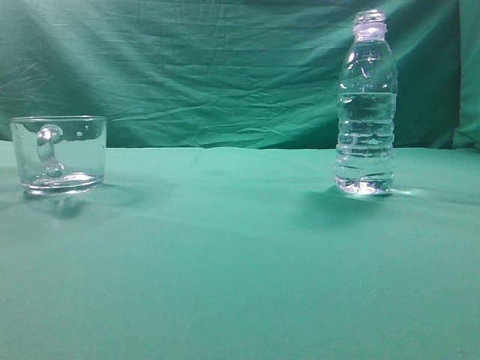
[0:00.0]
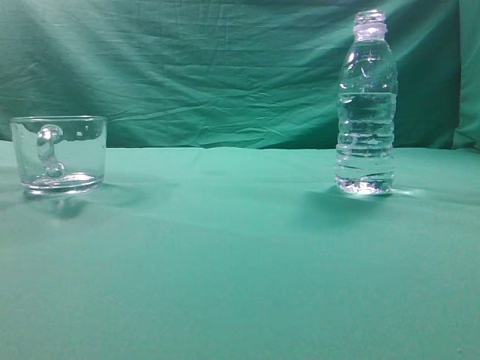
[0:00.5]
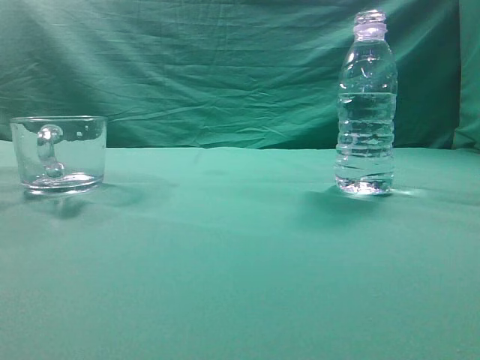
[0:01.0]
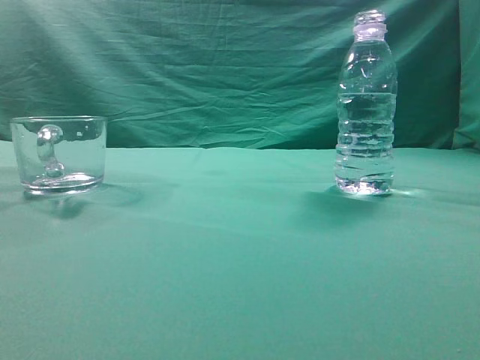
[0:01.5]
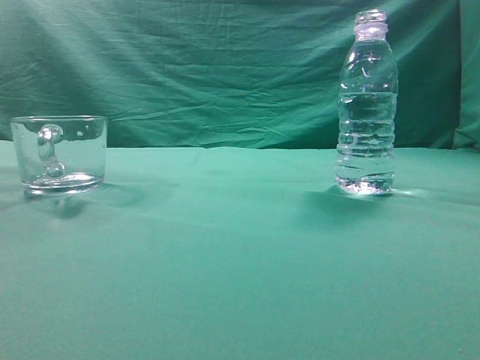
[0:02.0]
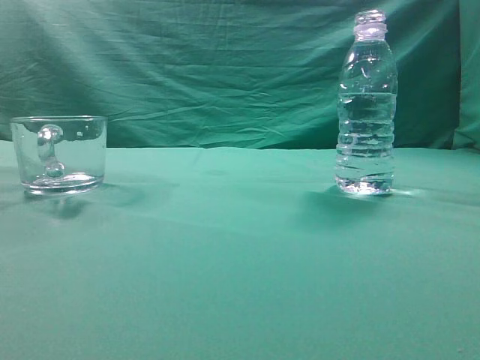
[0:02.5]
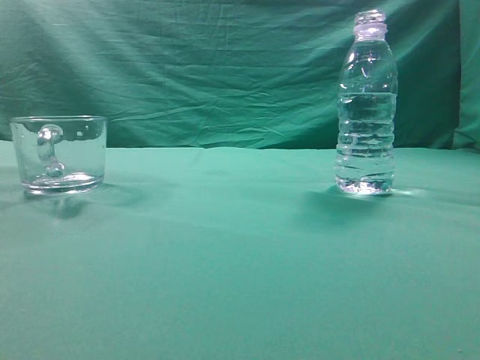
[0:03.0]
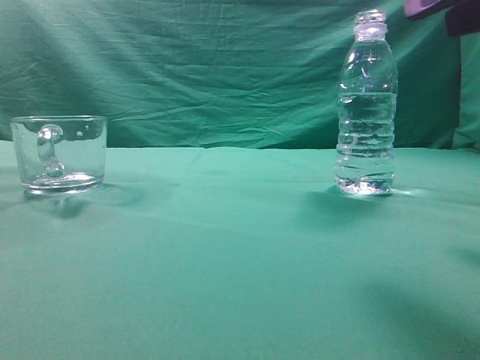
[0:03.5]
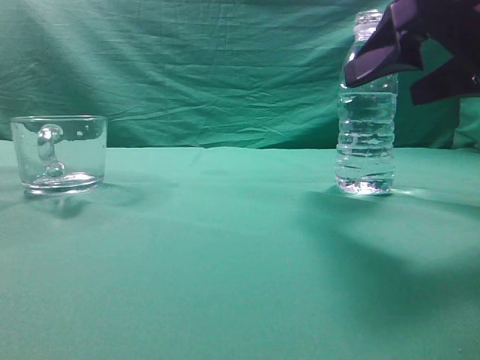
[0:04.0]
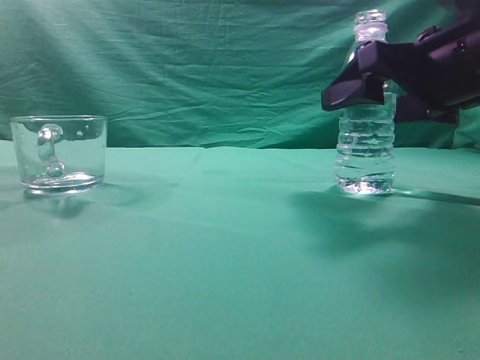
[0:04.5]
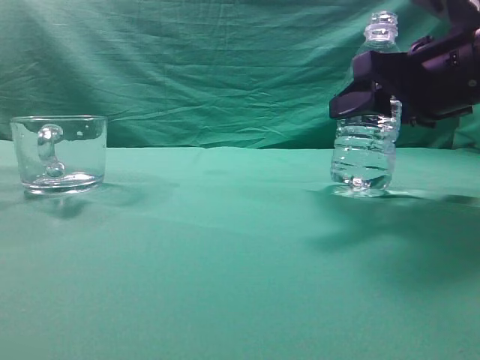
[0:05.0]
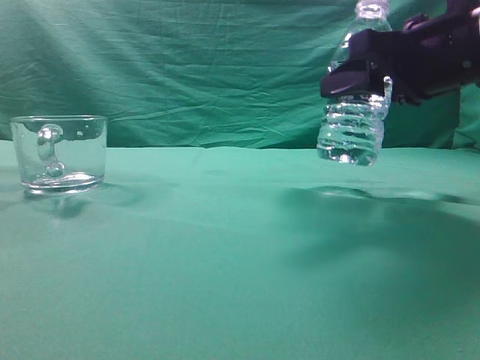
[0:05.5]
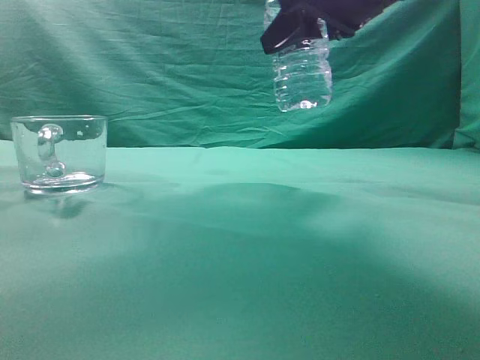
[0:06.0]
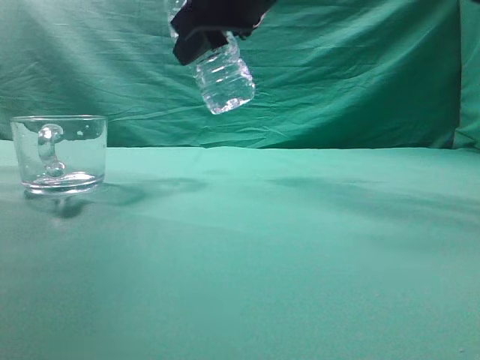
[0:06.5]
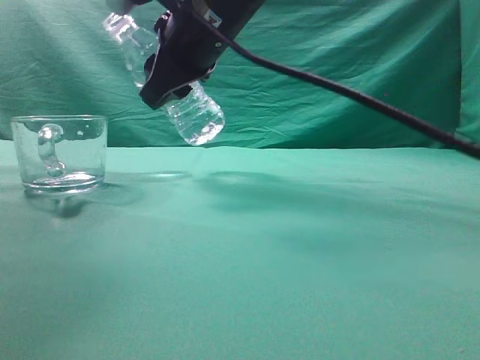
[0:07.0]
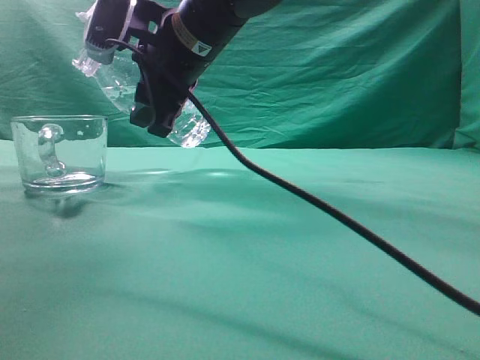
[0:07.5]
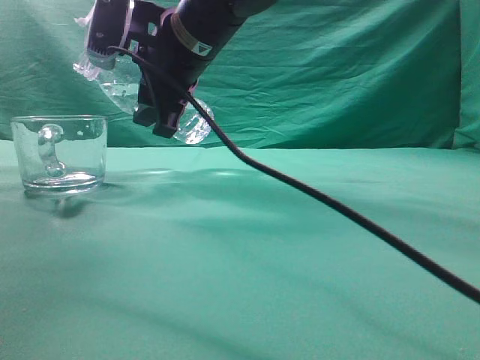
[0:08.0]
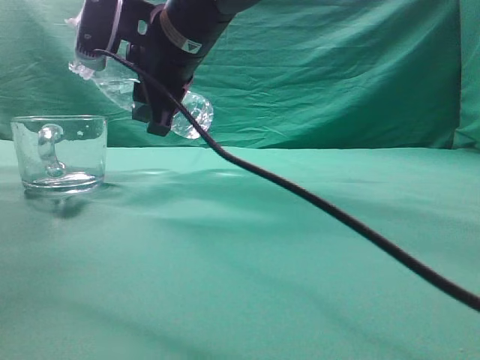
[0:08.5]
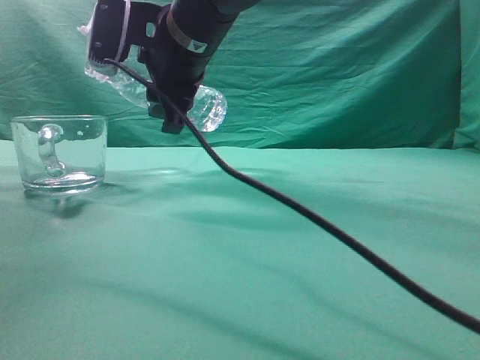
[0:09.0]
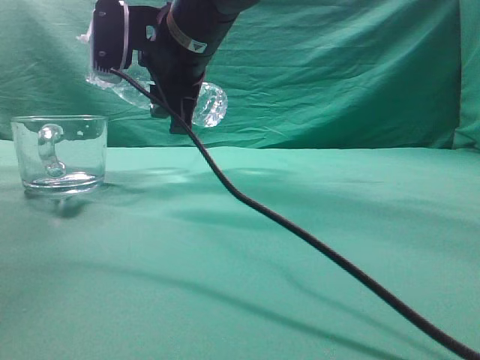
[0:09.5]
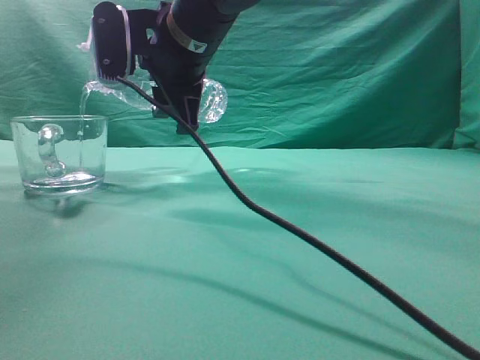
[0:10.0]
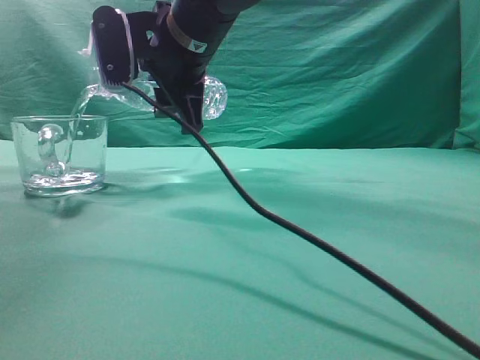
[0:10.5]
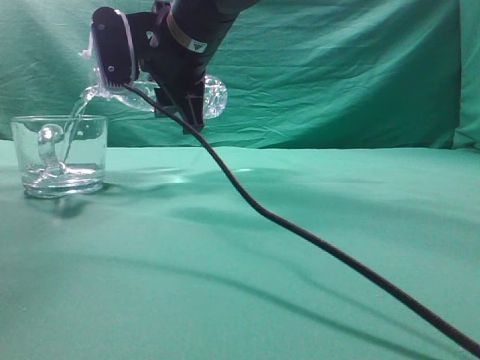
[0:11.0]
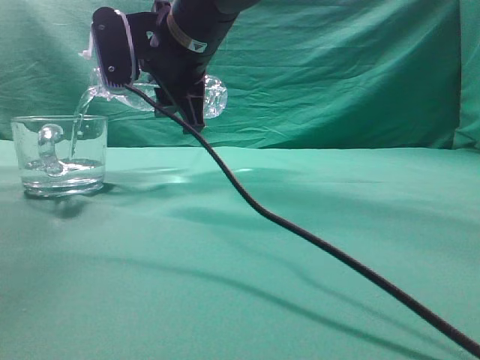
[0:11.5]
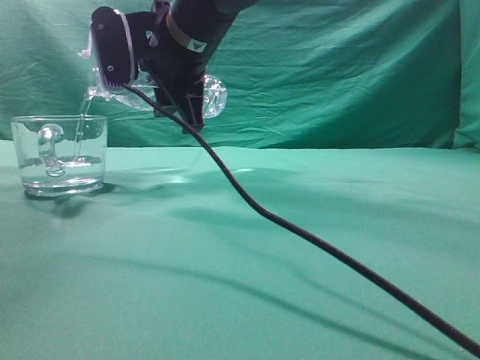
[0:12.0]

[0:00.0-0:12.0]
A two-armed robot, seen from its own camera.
Task of the whole recording: pick up the water bottle and pour the water in it into the glass.
Step, 0:00.0 to 0:05.5: Grasp the mineral water bottle.
0:02.0 to 0:04.0: The right gripper goes approximately 25 cm forward, and opens up.
0:04.0 to 0:06.0: The right gripper goes roughly 15 cm to the left, forward and upward, and closes its fingers.
0:06.0 to 0:08.0: The right gripper goes roughly 15 cm to the left.
0:08.0 to 0:10.0: The grippers make only small movements.
0:10.0 to 0:12.0: Both grippers stay about where they are.

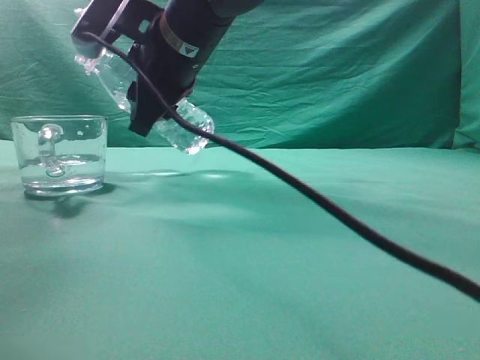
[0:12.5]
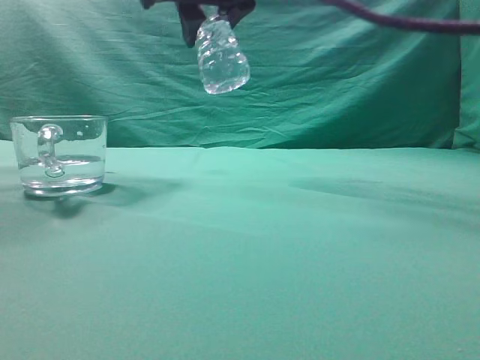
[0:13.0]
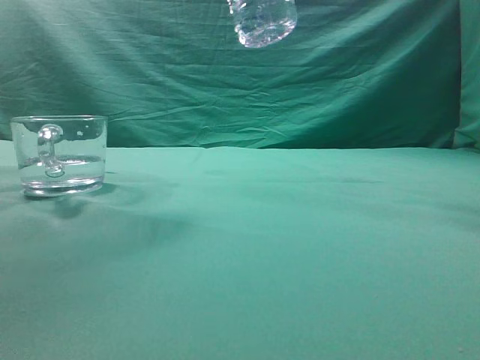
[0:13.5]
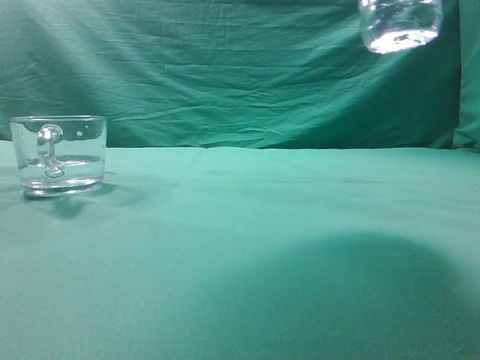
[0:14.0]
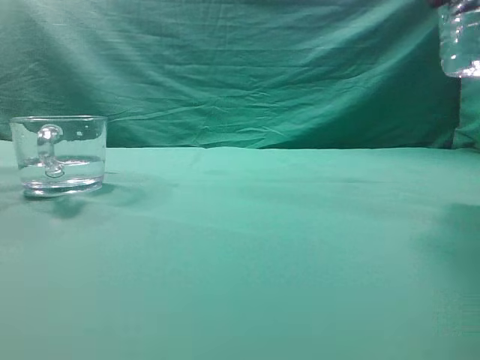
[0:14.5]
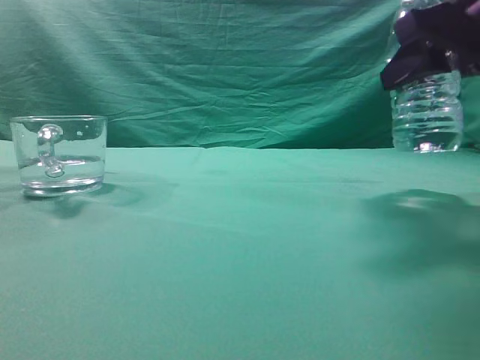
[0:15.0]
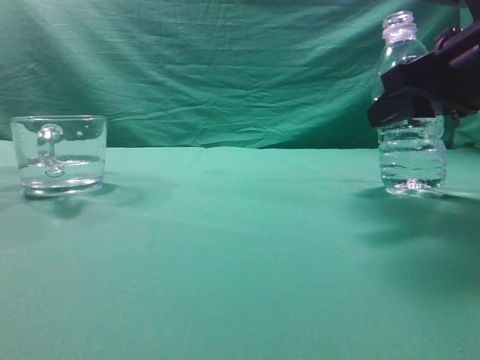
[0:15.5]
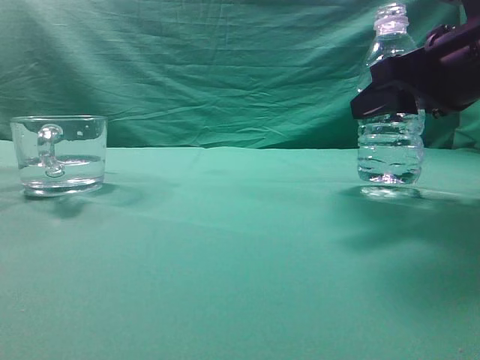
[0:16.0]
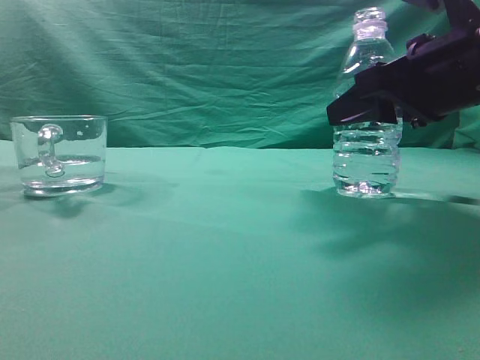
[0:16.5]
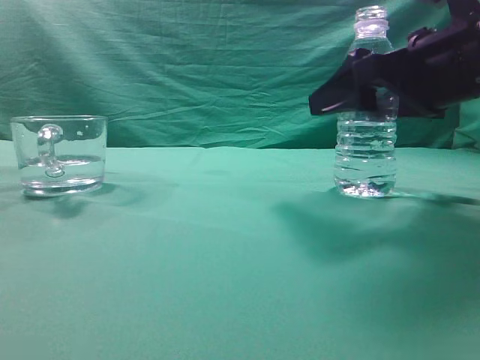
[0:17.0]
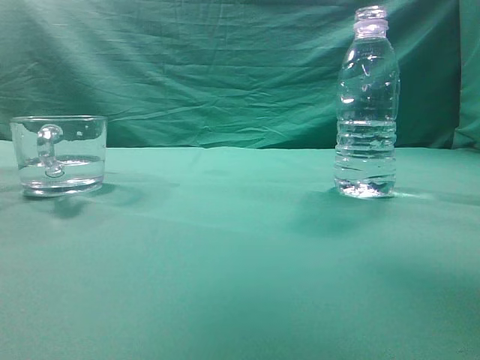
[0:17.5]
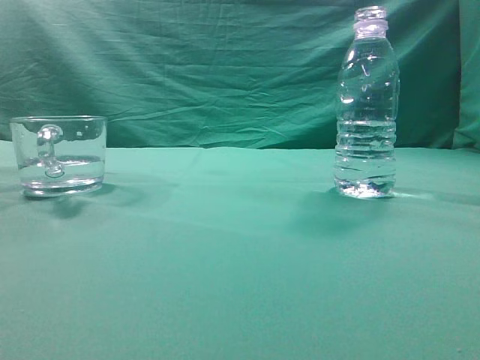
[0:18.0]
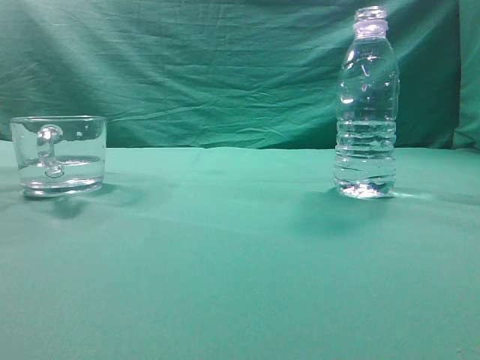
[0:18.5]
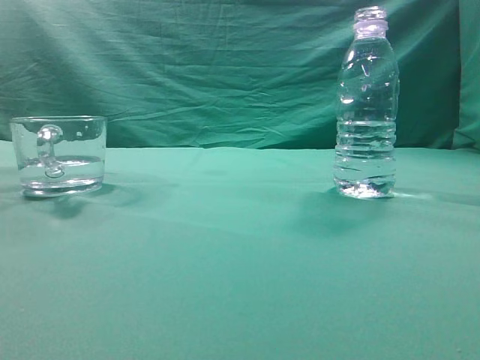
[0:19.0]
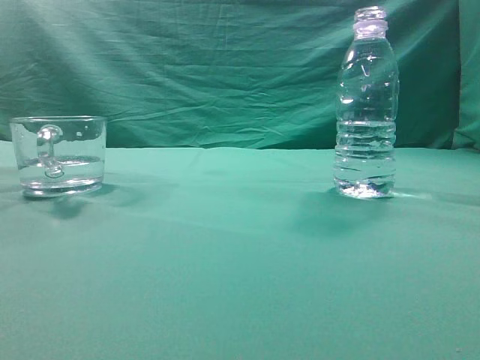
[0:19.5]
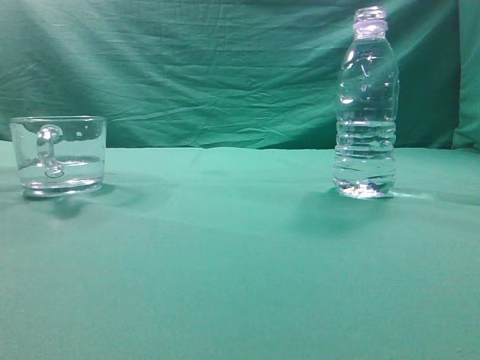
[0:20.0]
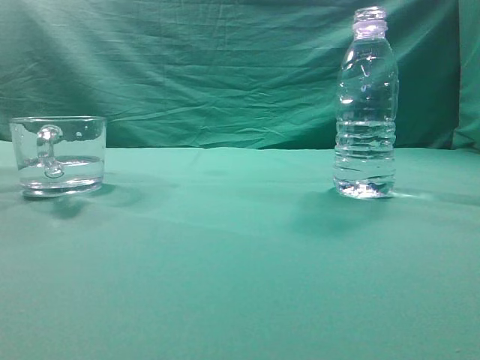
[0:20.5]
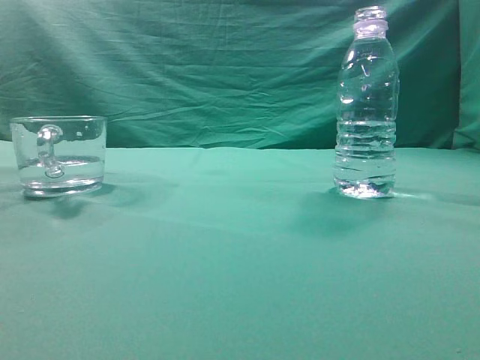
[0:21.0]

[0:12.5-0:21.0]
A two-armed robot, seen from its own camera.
Task of the whole recording: pick up the water bottle and pour the water in it into the glass.
0:12.5 to 0:14.5: The right gripper moves to the right and backward, about 30 cm.
0:14.5 to 0:16.5: The right gripper shifts some 10 cm downward.
0:16.5 to 0:19.0: The right gripper goes about 35 cm backward and upward, and closes.
